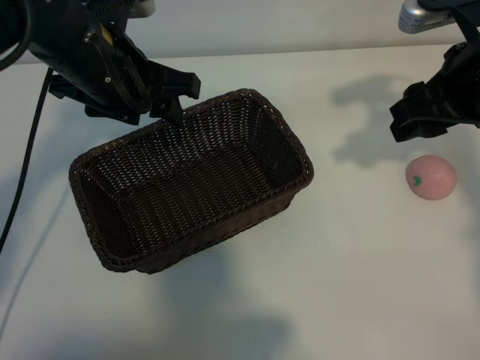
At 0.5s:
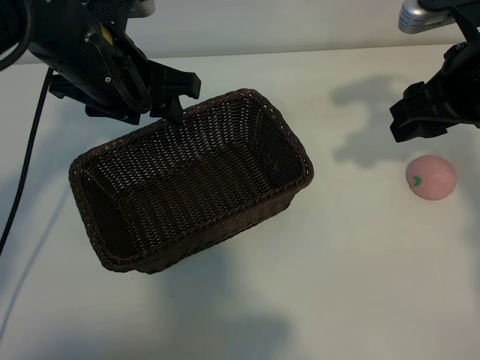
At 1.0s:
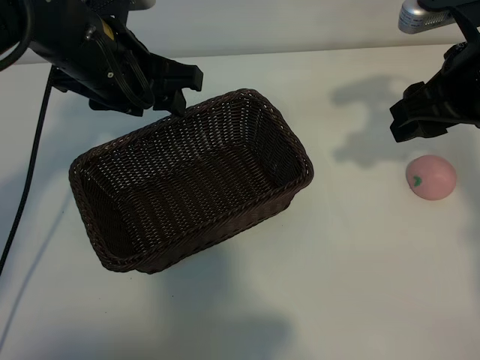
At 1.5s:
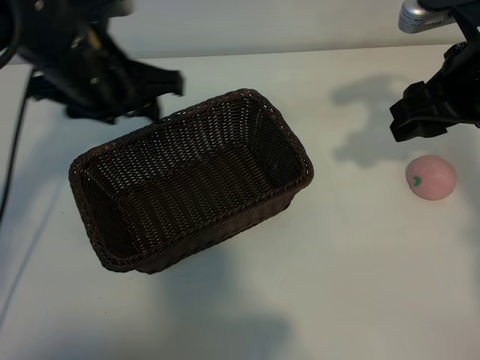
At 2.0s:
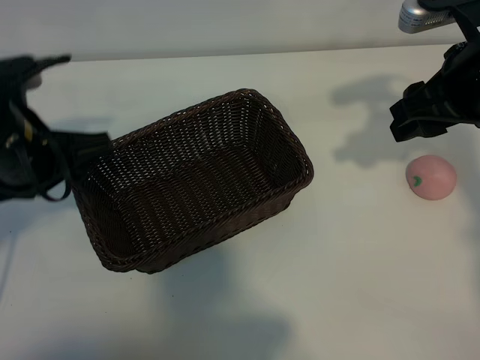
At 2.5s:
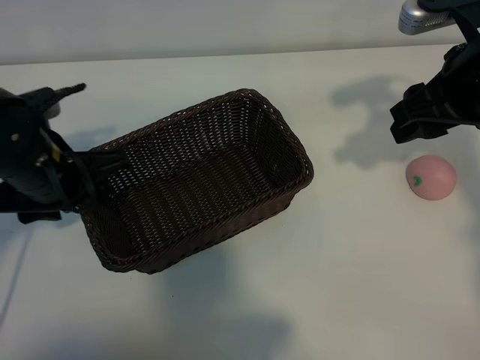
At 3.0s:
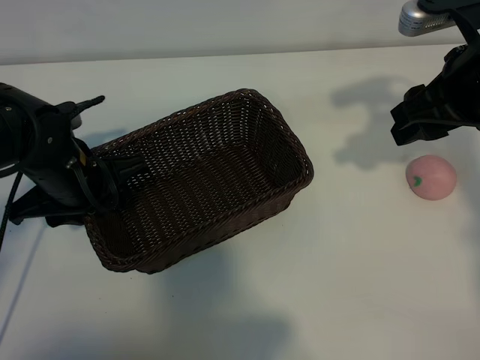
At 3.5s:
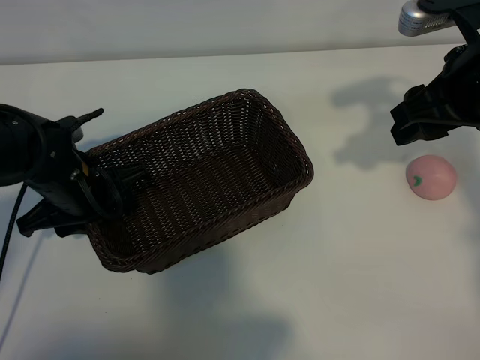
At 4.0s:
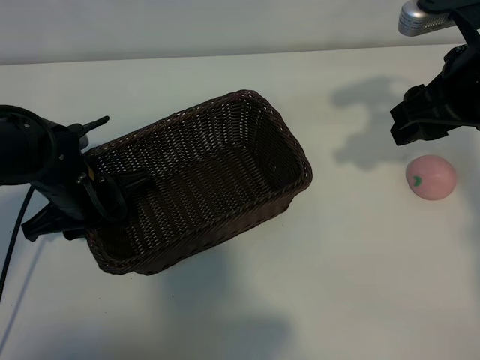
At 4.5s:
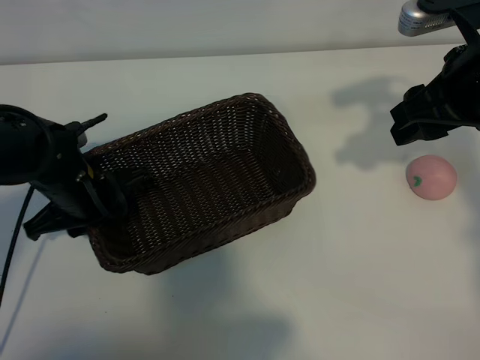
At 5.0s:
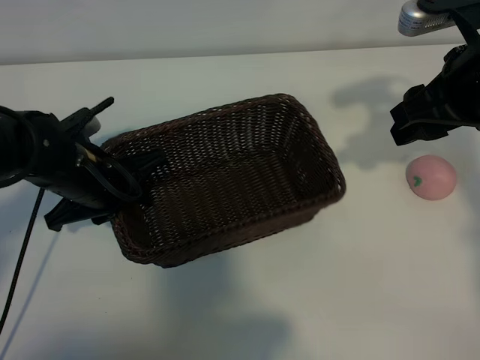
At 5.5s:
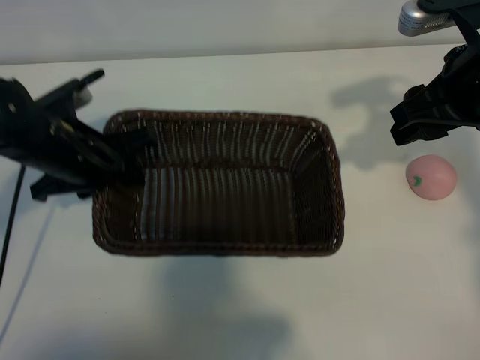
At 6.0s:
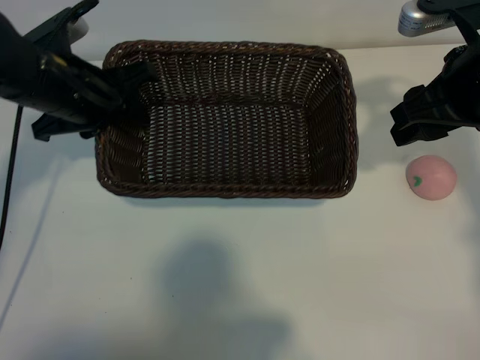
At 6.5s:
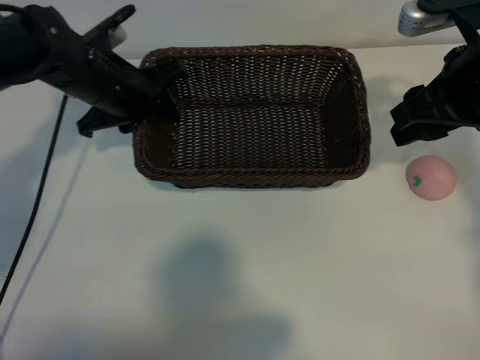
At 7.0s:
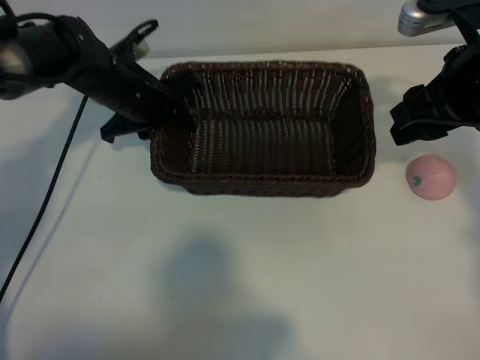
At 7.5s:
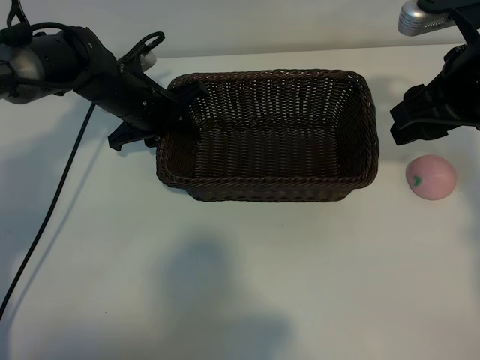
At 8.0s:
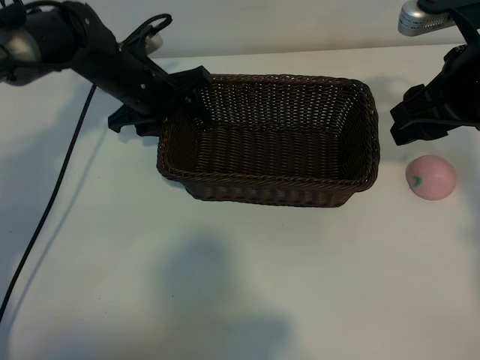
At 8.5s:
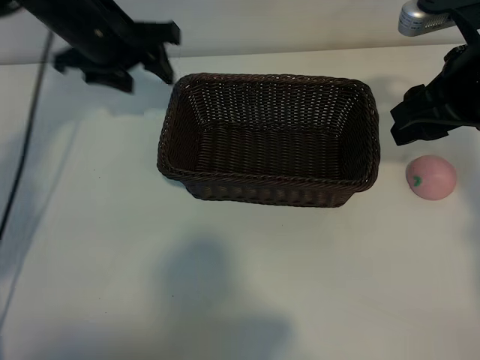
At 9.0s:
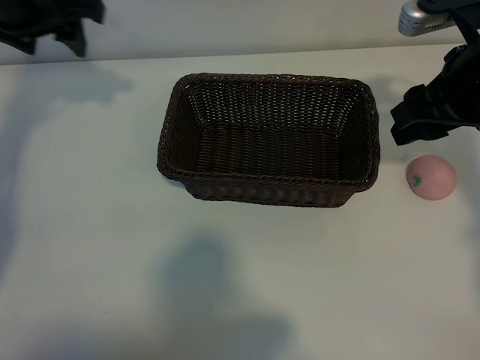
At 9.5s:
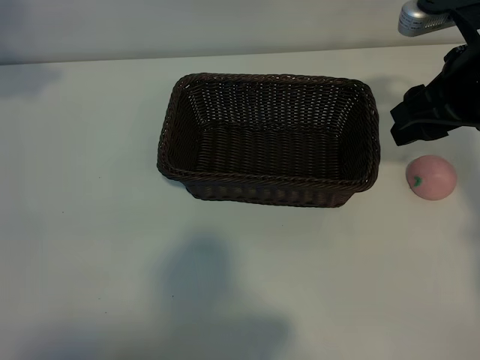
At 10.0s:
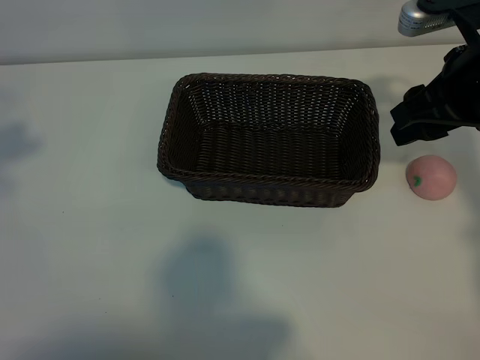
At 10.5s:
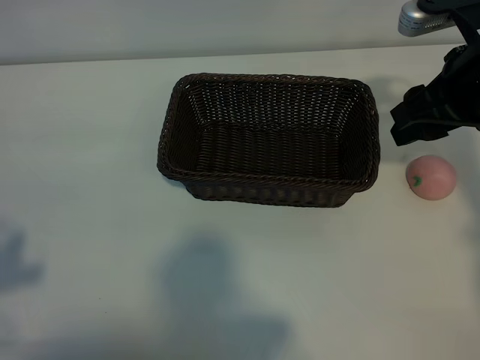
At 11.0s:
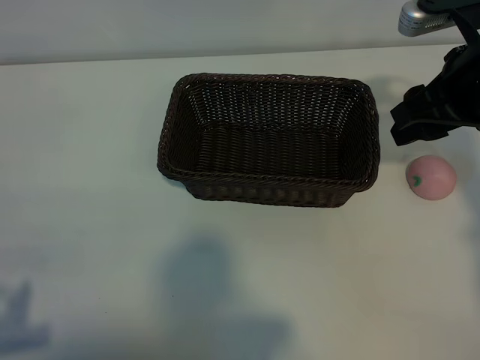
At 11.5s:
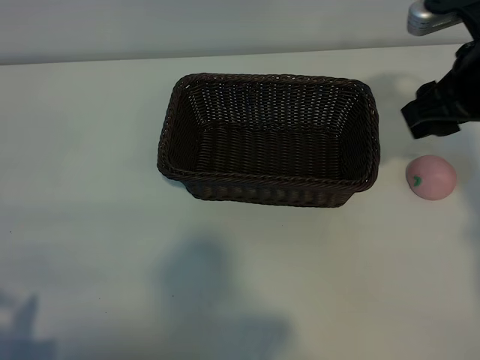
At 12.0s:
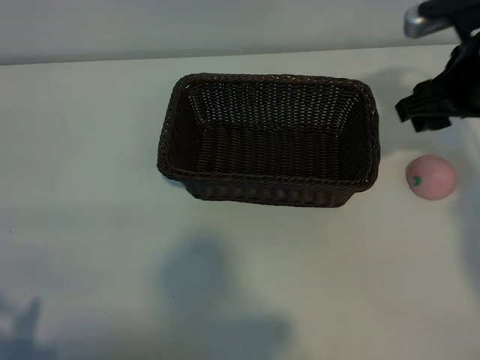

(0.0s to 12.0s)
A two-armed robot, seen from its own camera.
Task of the whole recording: pick up the peach and put it into the basket.
Step, 1.0s - 4.0s: Grasp the basket with left gripper.
Step, 4.5s - 8.0s: Place the basket in the center of view with left gripper.

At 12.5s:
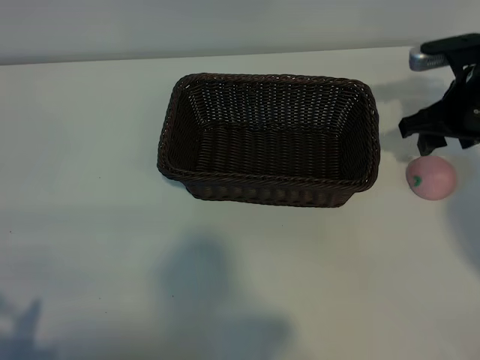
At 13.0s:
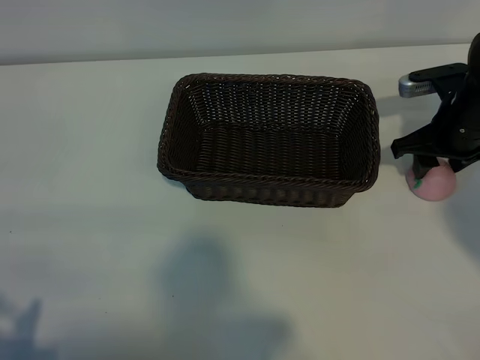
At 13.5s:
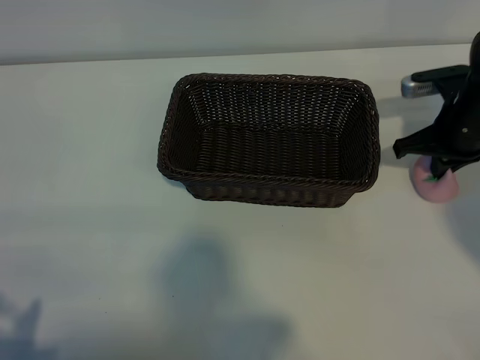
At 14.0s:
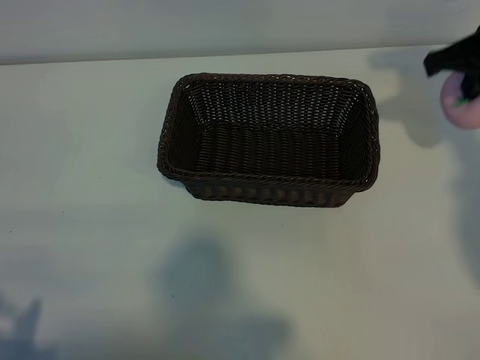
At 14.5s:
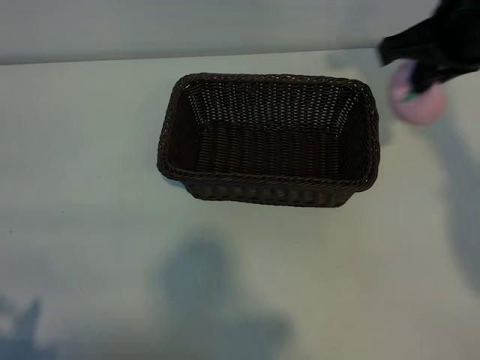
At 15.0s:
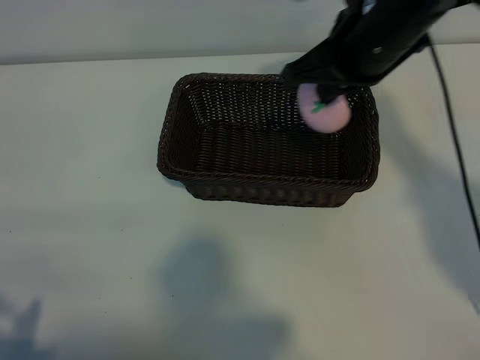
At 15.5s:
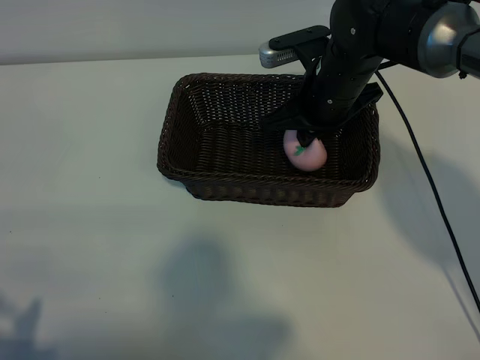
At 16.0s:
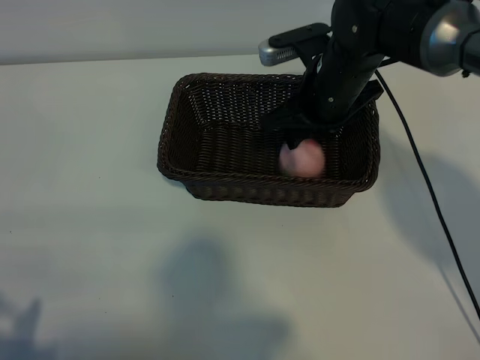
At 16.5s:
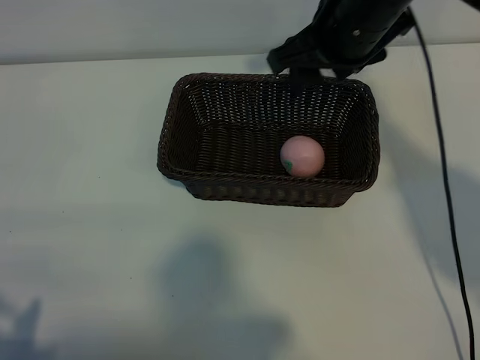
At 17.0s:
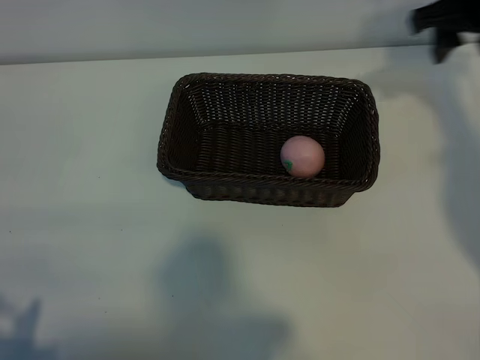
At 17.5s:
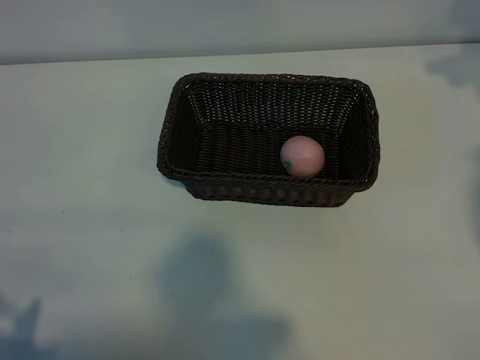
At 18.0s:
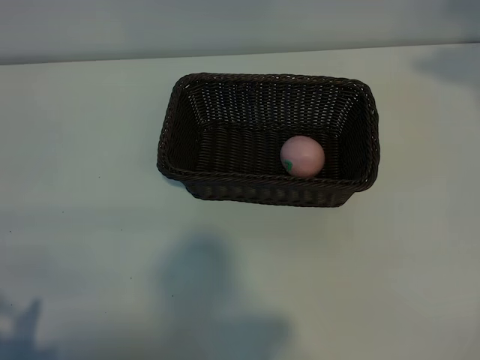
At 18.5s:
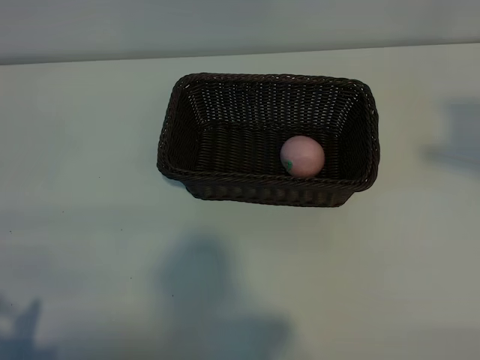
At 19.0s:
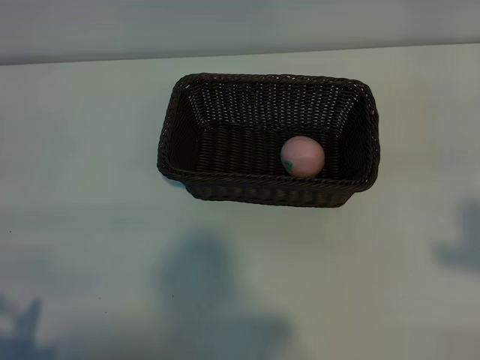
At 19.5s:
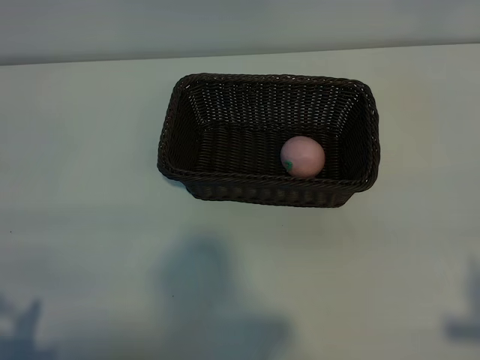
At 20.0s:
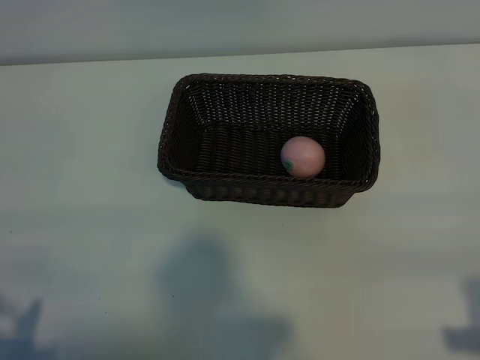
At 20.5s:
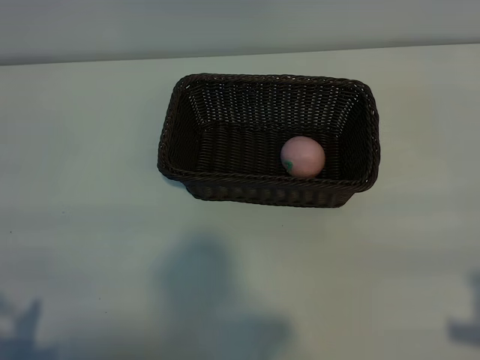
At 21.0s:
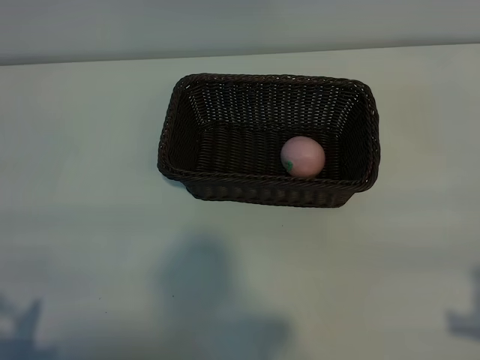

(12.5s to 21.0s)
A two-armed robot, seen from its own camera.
Task of the whole recording: pick up the peach and put it into the basket.
Step, 13.5s - 16.0s: Place the peach in the basket with right gripper.
